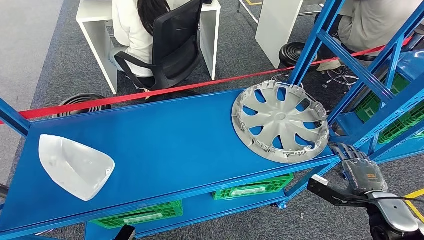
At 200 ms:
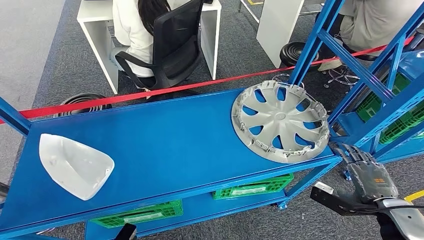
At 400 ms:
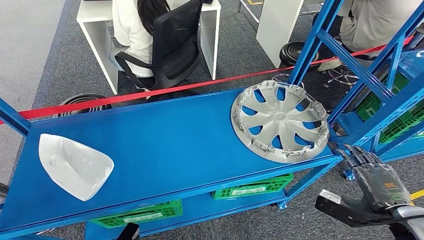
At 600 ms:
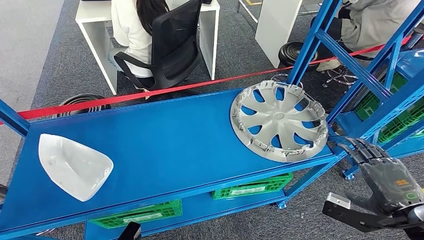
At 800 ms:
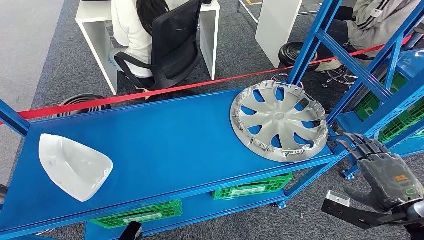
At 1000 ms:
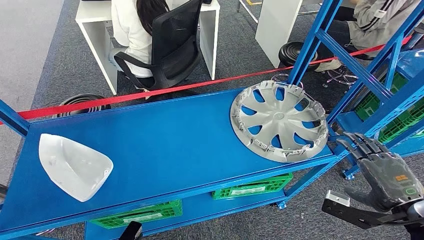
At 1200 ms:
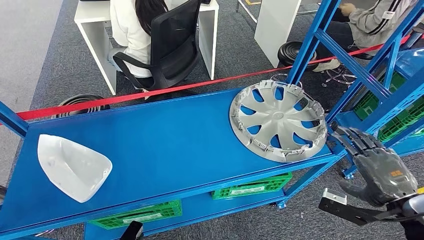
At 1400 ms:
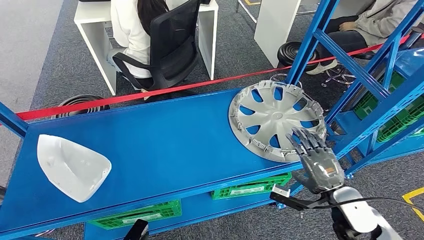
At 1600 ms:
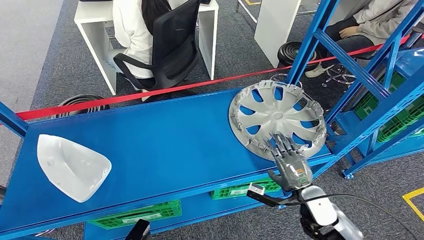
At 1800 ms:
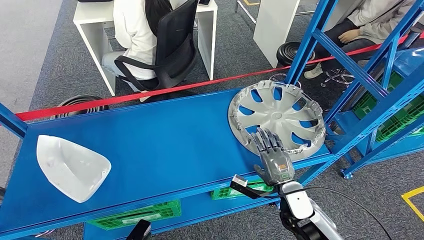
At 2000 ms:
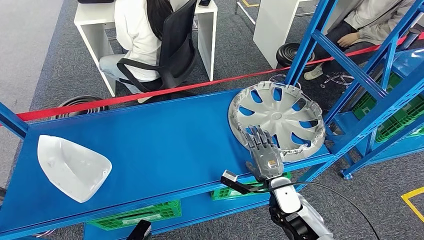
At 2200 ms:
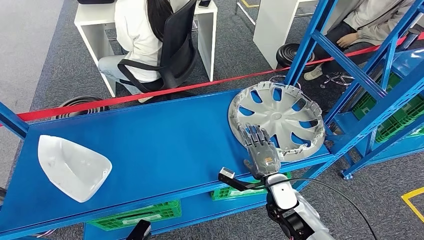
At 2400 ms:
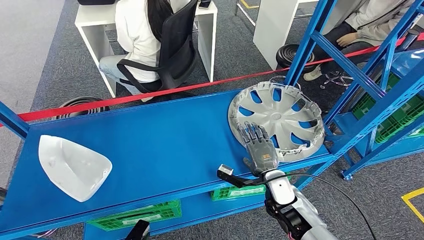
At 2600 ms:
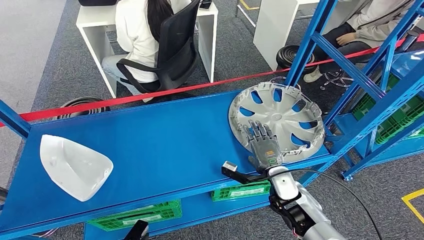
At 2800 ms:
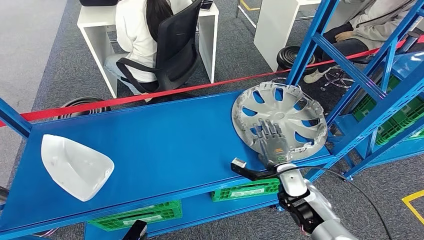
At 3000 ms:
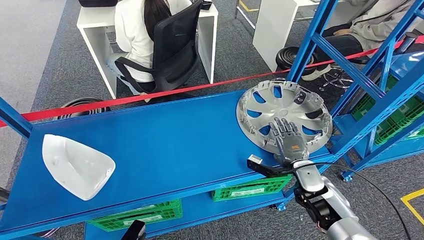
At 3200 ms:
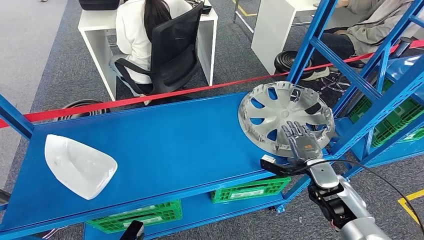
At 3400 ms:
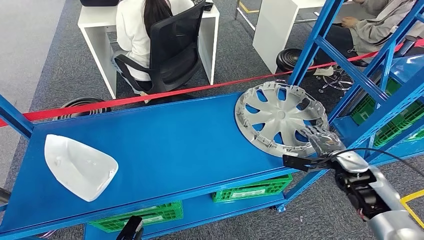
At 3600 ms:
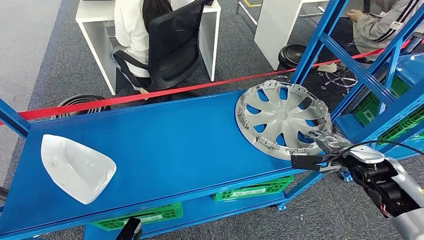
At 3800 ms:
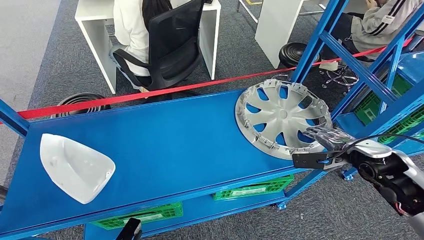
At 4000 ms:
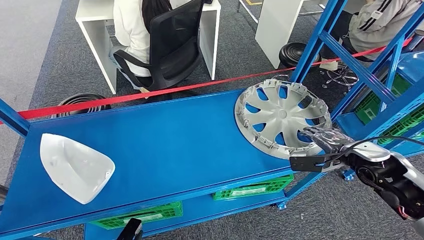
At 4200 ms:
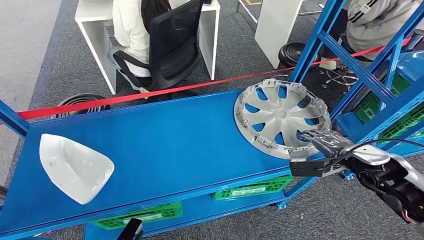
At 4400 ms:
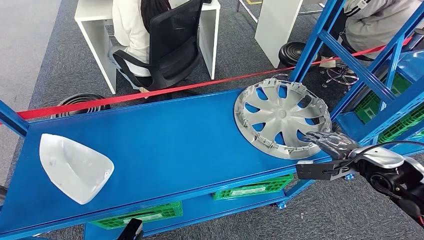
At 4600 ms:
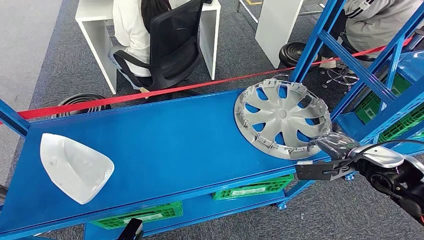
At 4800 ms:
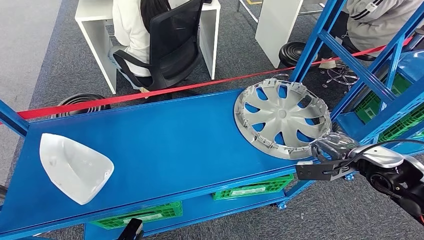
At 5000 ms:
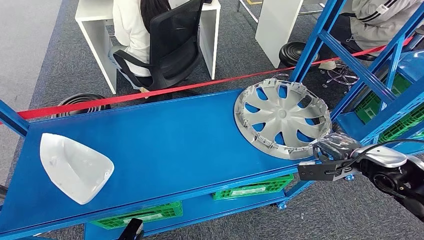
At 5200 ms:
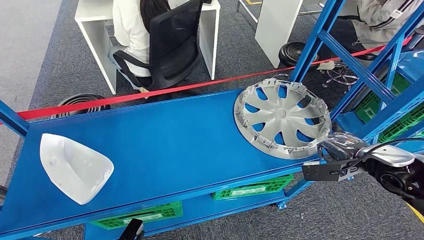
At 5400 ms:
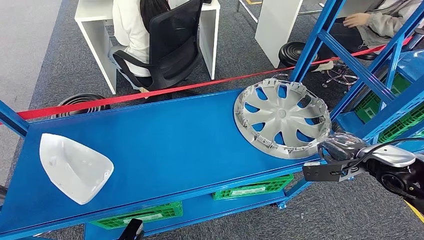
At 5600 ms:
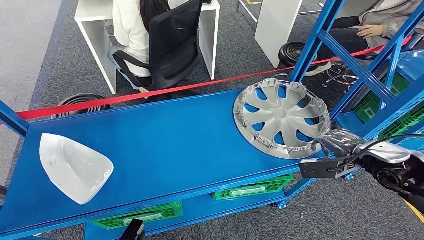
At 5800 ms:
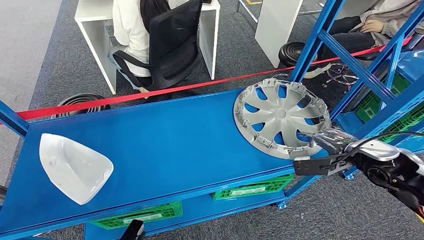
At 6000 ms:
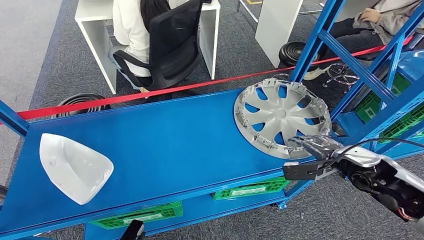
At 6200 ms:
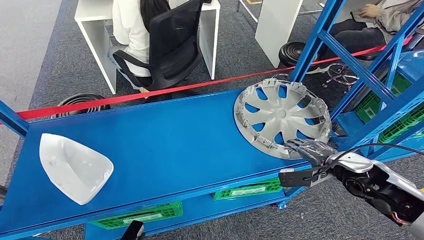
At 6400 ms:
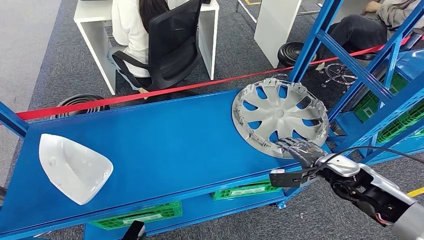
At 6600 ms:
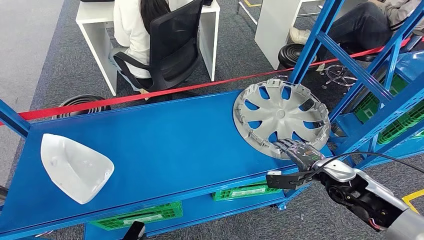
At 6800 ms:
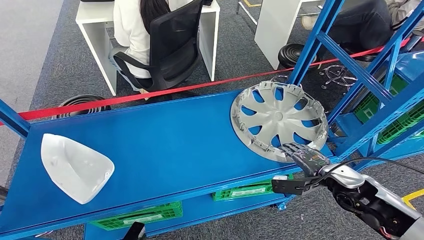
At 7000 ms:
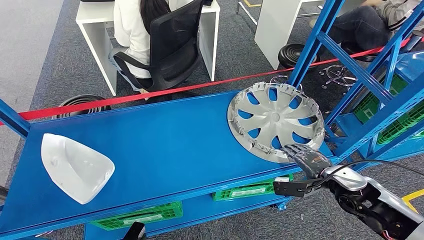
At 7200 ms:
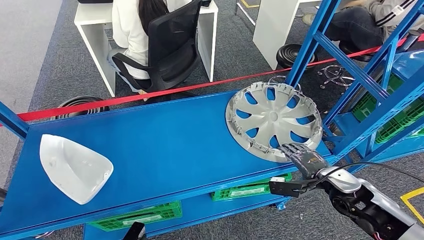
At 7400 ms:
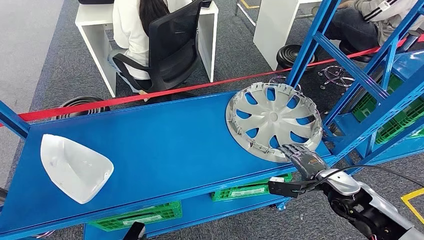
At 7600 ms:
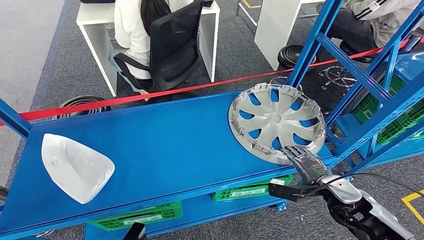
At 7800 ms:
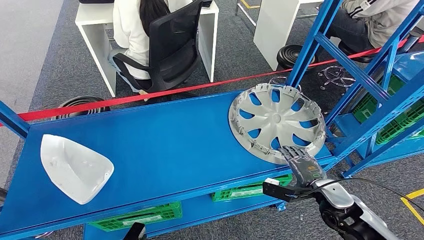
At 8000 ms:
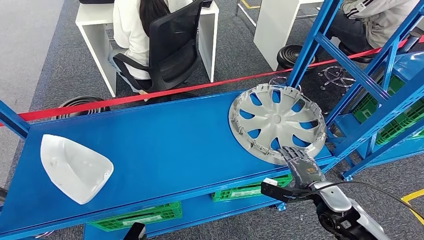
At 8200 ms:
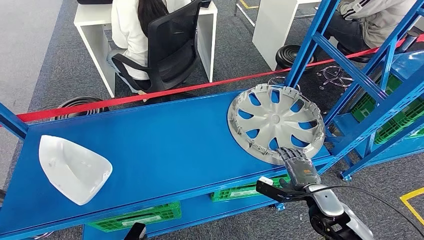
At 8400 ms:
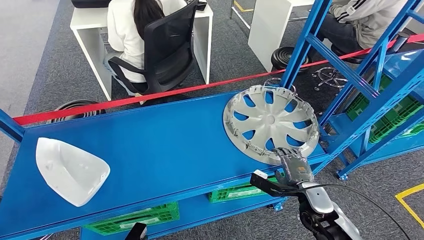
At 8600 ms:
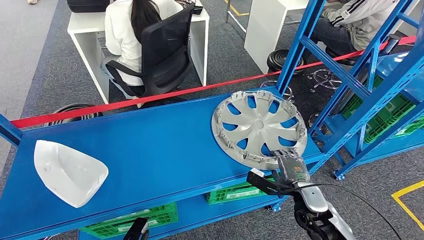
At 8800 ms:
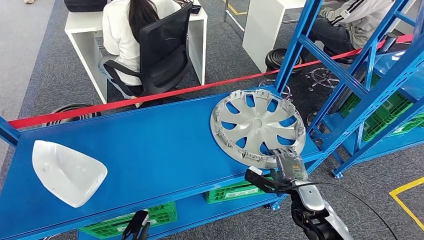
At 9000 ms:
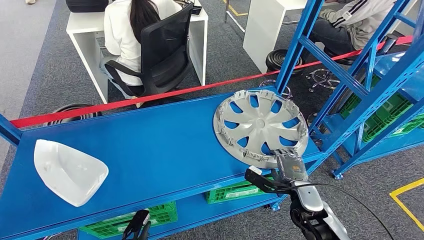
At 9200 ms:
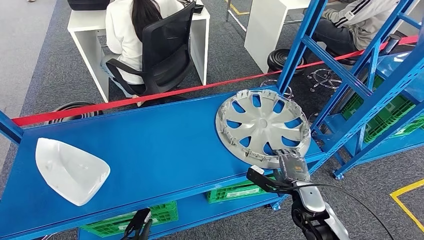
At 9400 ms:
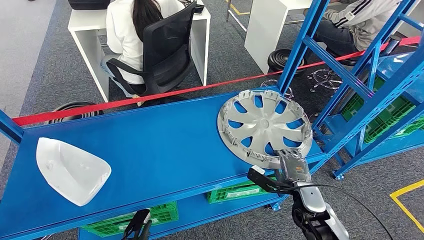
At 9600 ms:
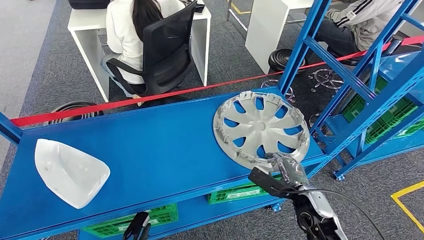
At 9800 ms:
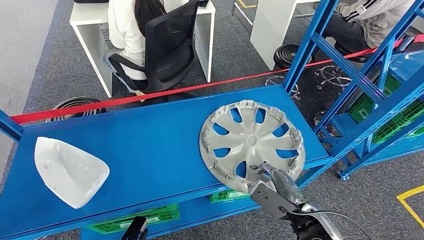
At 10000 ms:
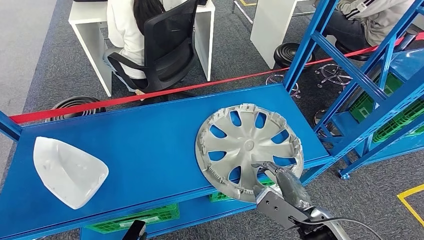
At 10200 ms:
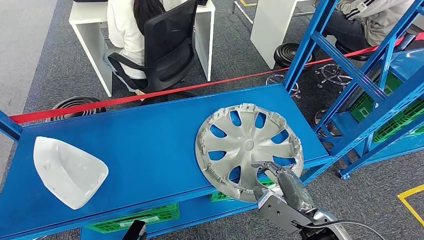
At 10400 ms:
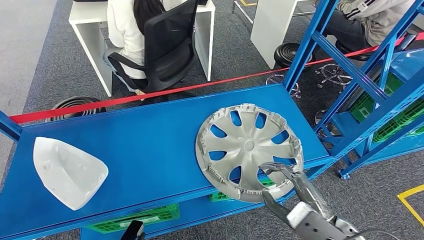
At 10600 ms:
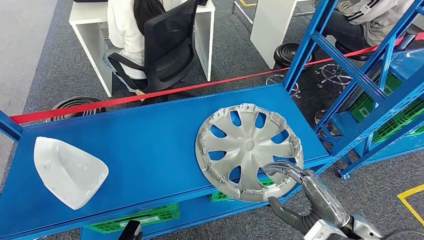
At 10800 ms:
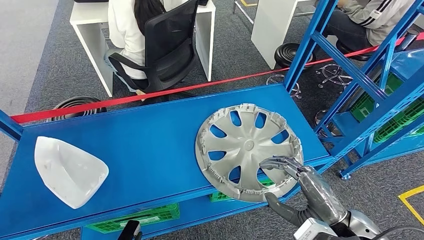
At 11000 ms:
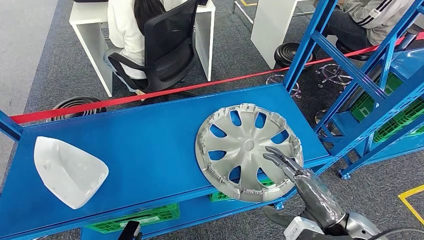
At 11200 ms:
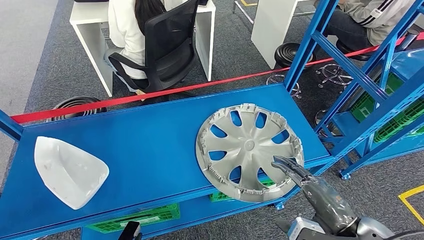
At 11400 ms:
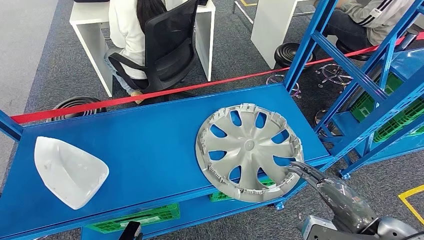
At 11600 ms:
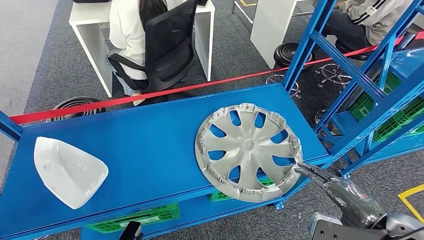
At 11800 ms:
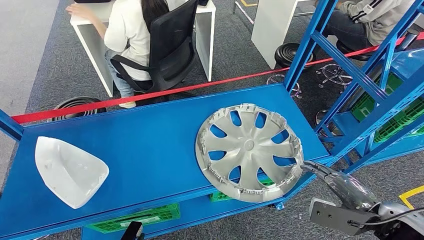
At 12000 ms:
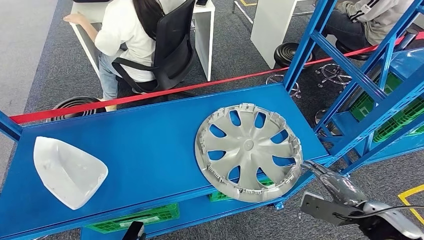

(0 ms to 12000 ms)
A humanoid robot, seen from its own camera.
4400 ms - 6000 ms: The hands make only small movements.
10400 ms - 12000 ms: The right hand moves to the right, about 15 cm.

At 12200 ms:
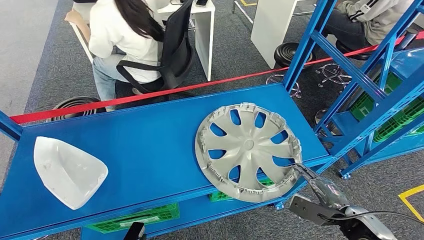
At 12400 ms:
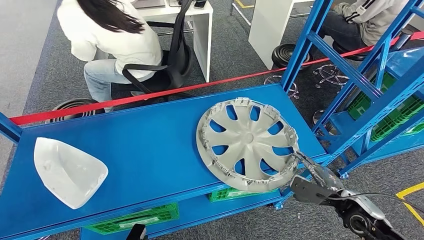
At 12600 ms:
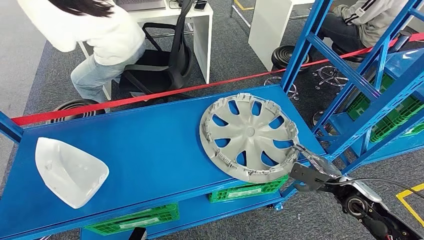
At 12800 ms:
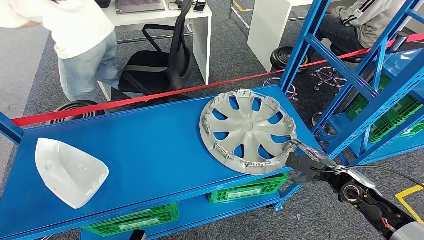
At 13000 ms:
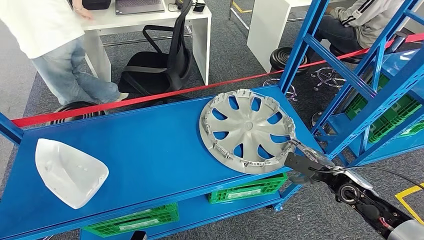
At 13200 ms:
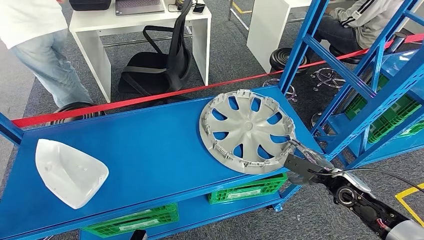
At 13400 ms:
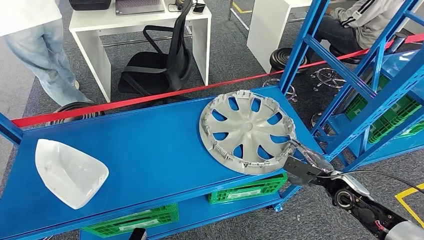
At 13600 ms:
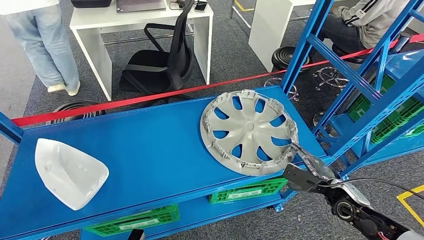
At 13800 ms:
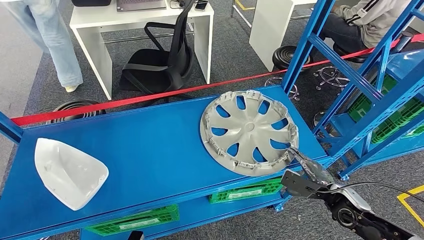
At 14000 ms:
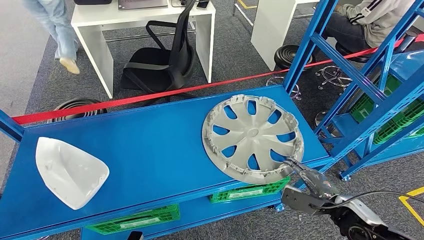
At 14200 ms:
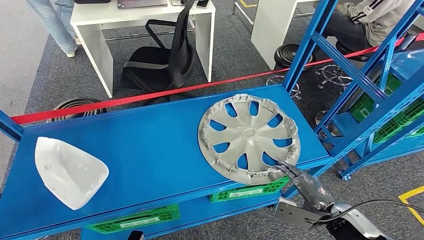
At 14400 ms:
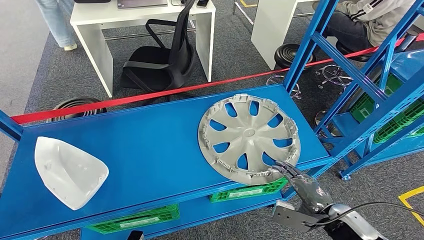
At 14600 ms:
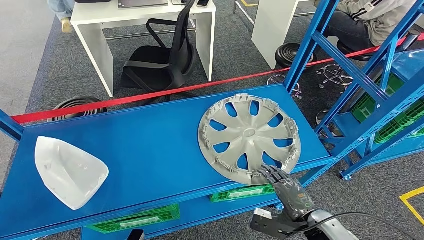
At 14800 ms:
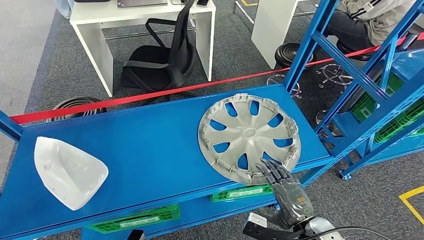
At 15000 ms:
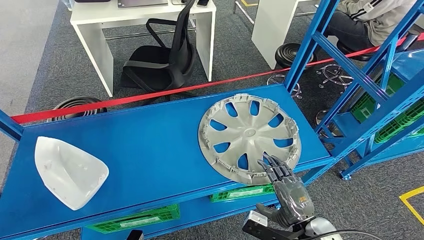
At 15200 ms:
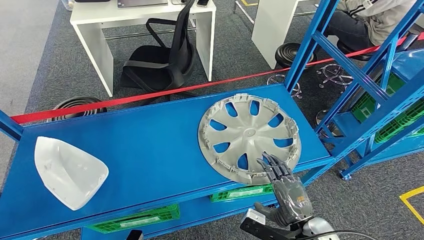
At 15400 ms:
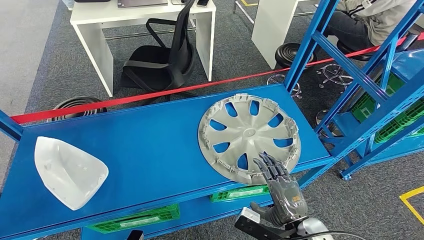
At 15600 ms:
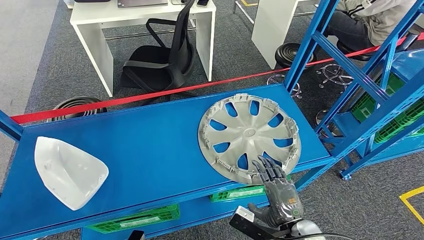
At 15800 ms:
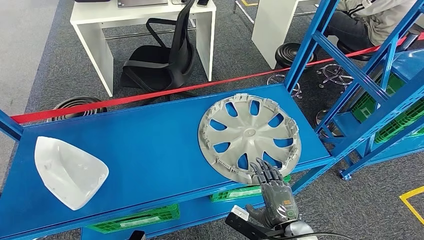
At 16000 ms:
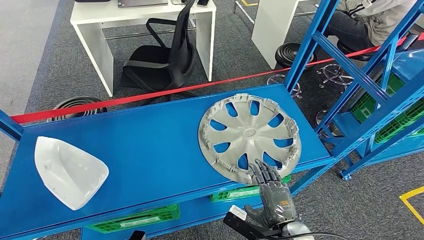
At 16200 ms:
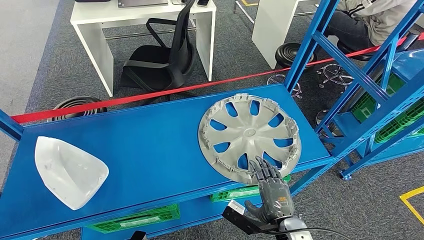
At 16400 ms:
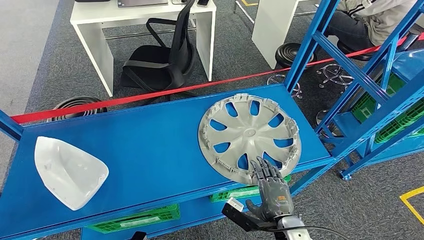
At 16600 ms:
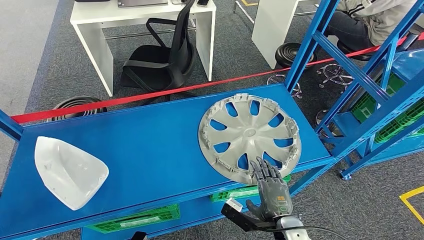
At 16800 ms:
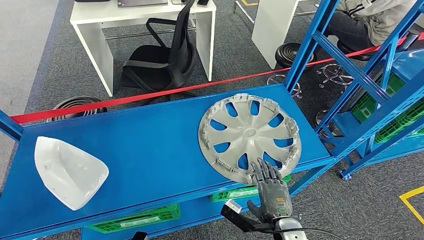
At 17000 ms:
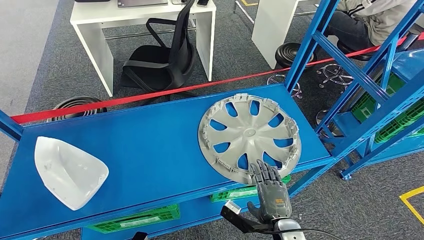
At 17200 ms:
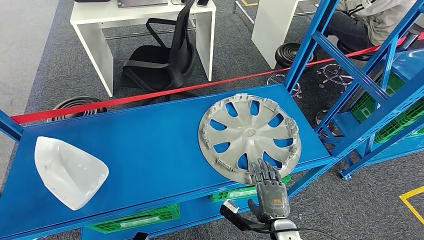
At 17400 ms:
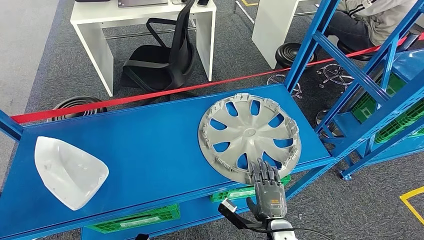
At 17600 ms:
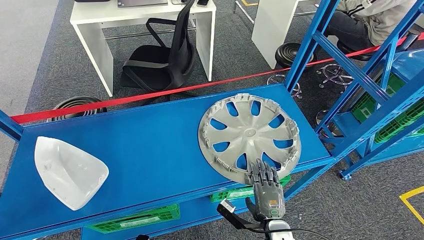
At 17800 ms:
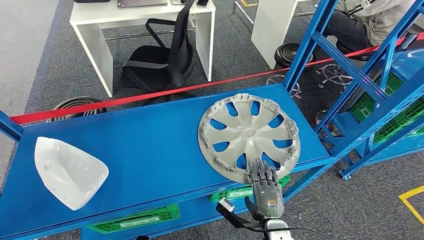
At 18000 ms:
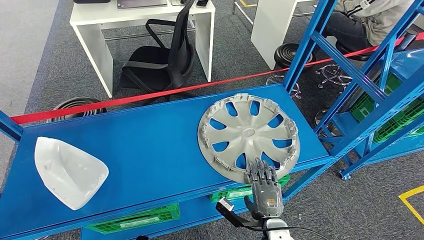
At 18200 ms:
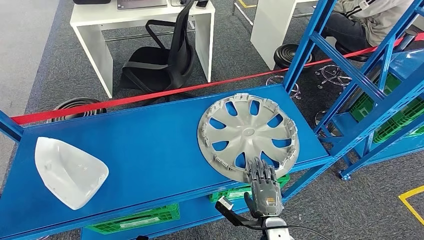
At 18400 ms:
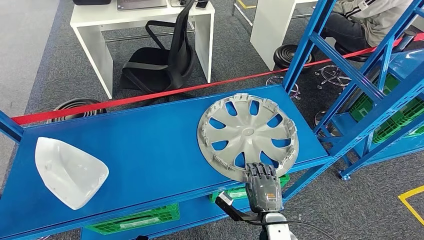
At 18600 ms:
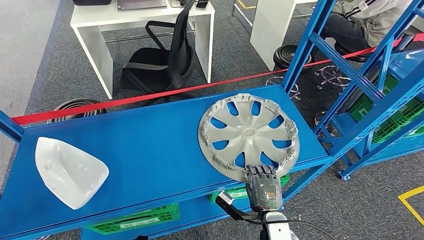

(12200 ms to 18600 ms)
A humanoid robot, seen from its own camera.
15400 ms - 17000 ms: The right hand shifts roughly 5 cm downward.
17000 ms - 18600 ms: The hands move only a little.
